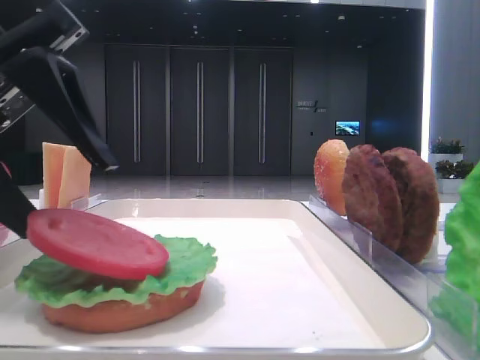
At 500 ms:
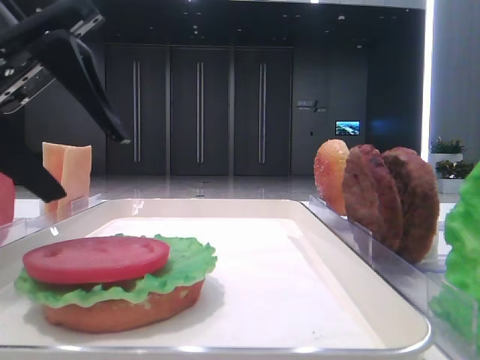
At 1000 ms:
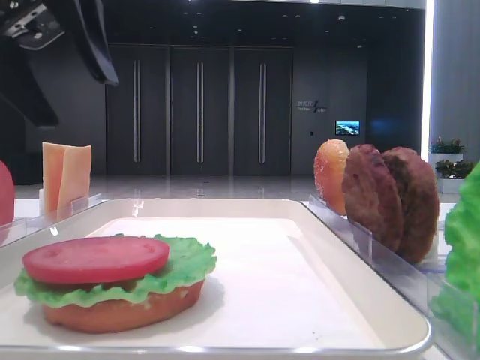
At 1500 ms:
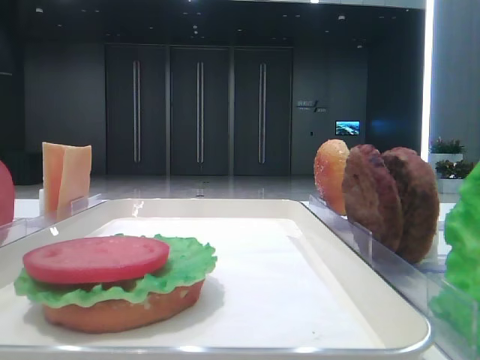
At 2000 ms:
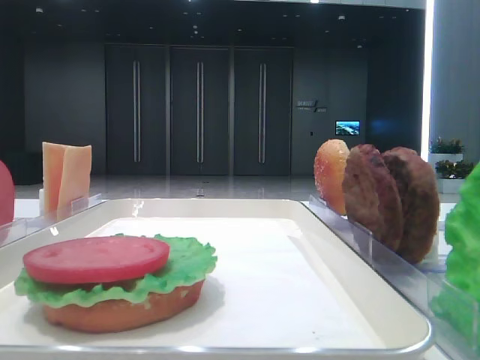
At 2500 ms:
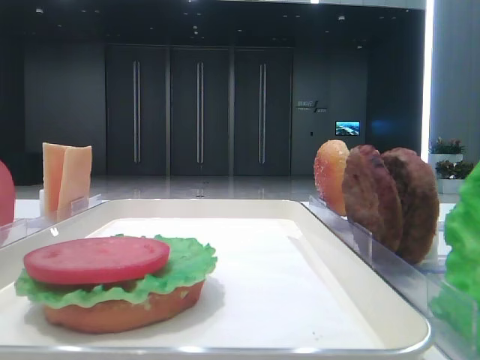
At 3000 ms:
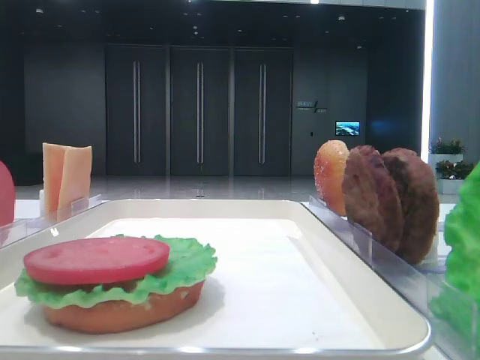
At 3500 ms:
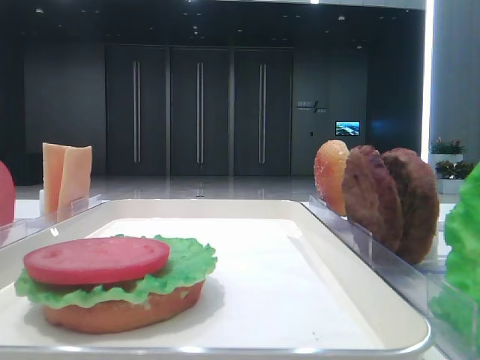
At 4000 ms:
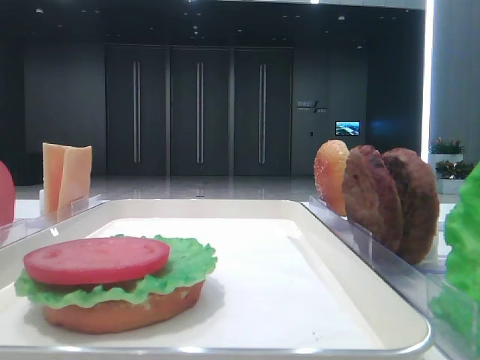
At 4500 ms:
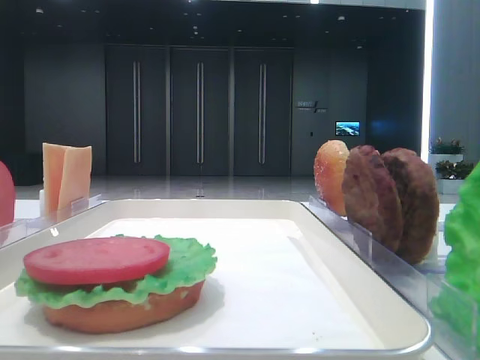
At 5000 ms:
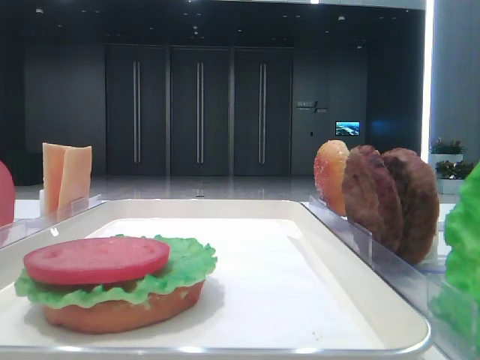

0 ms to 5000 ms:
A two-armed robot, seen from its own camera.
0 ms to 2500 ms: The left gripper heads upward, to the left and backward, covering roughly 25 cm.
